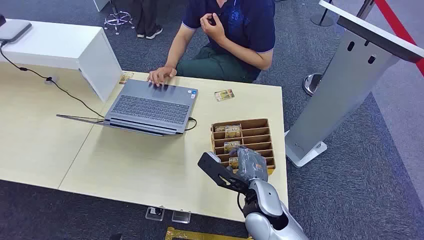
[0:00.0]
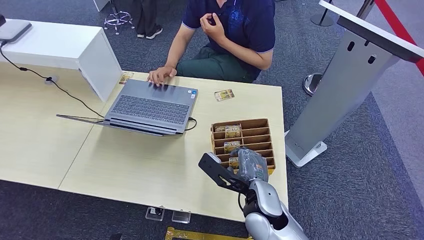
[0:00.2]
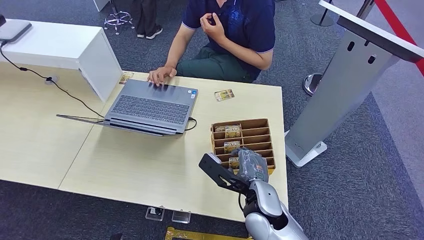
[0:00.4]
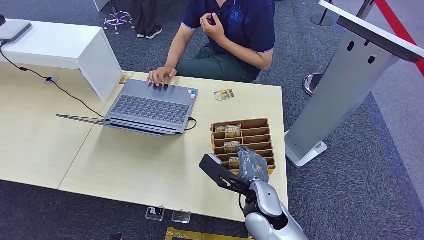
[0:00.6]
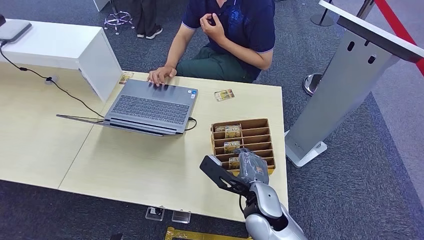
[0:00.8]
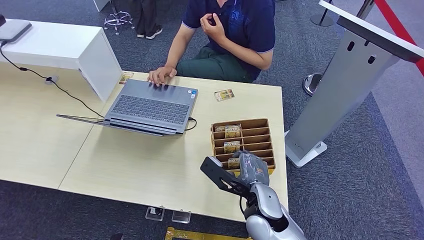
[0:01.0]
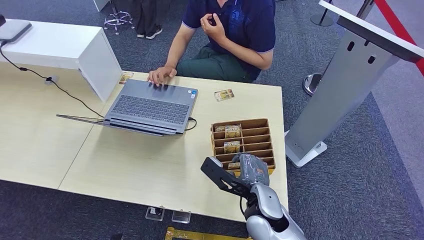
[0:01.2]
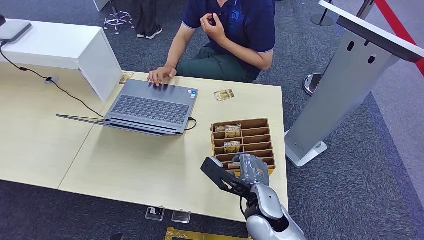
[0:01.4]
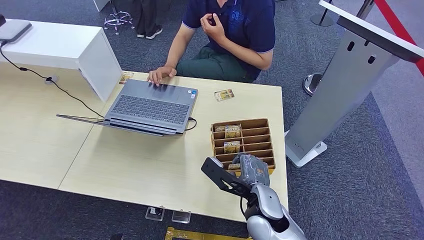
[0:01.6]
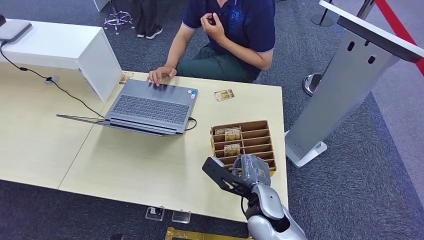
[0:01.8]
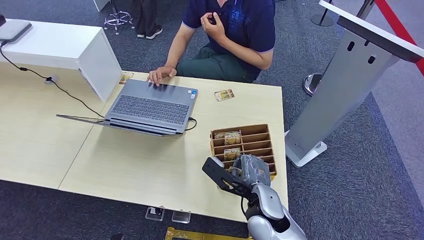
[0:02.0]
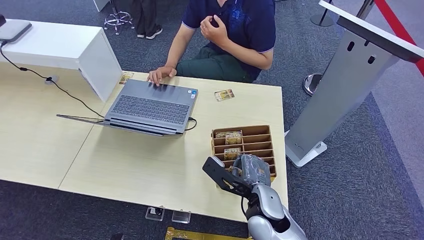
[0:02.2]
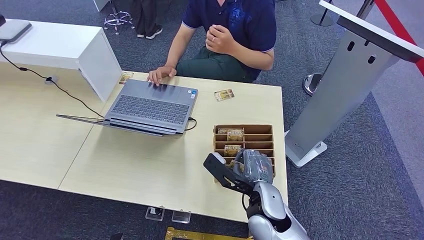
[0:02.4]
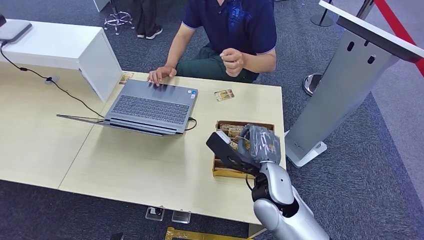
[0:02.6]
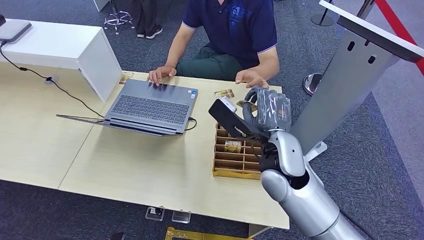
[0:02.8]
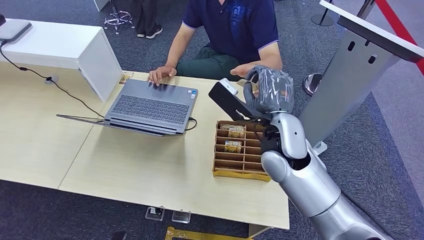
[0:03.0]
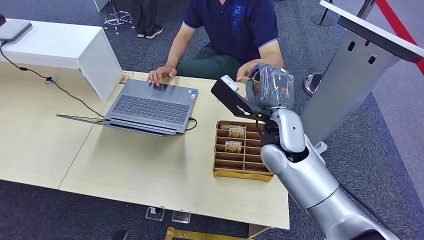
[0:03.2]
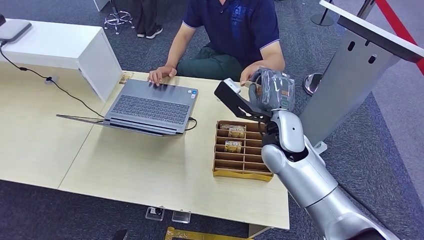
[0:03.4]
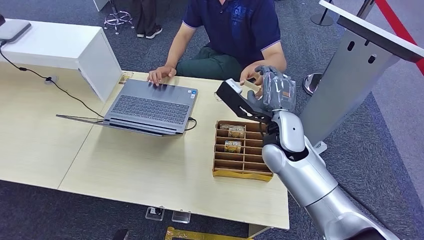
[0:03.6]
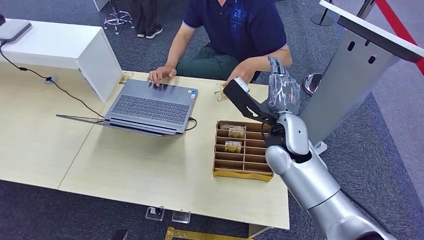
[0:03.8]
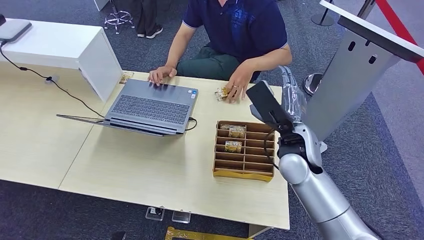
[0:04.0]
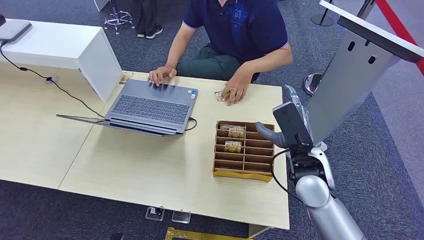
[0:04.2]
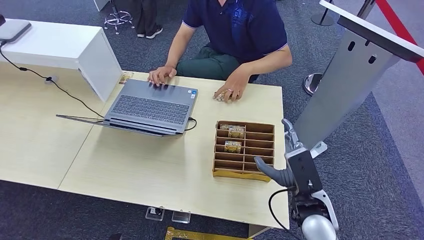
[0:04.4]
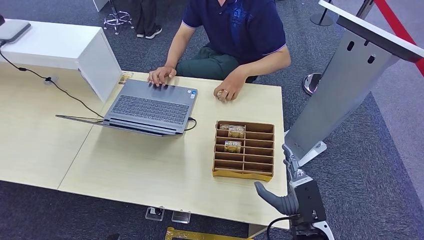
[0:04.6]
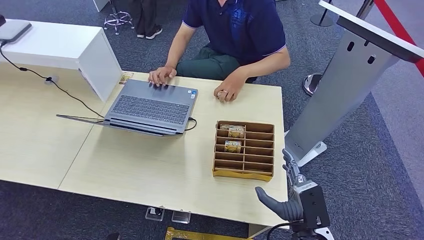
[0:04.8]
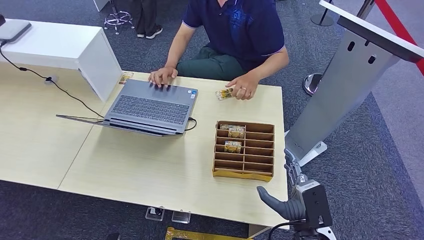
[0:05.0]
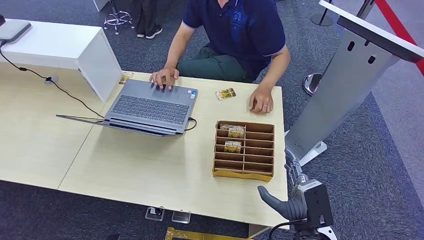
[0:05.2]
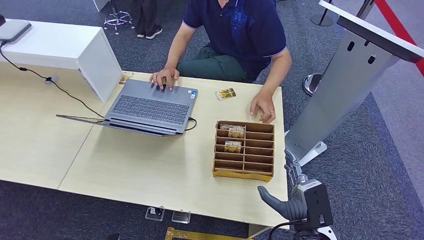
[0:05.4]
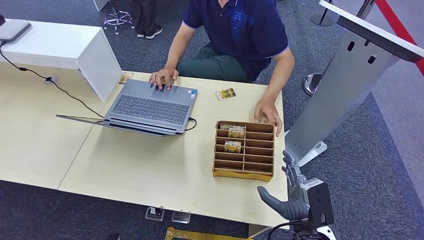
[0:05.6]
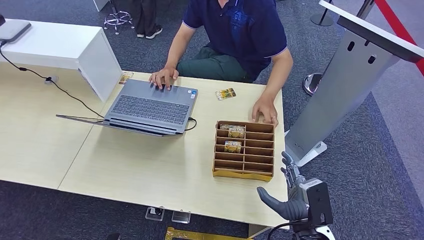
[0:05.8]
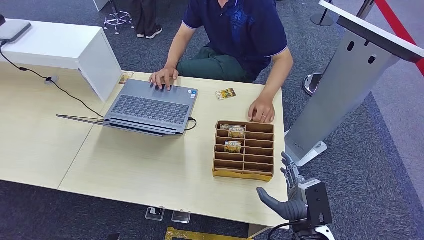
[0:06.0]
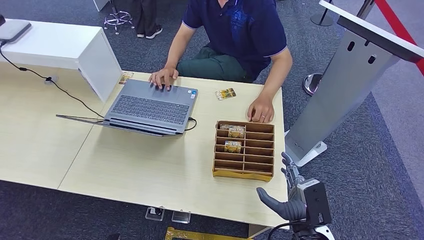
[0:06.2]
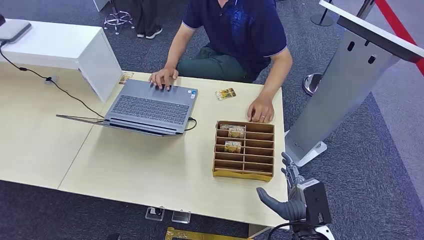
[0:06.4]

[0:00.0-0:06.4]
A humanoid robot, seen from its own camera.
Step, 0:00.0 to 0:02.4: Pick up the key card from the card box.
Step, 0:02.8 to 0:06.2: Hand the key card to the target.
0:01.6 to 0:03.2: The right hand is displaced upward and forward by about 20 cm.
0:03.2 to 0:04.8: The right hand shifts roughly 25 cm backward, downward and to the right.
0:04.8 to 0:06.4: The hands make only small movements.
